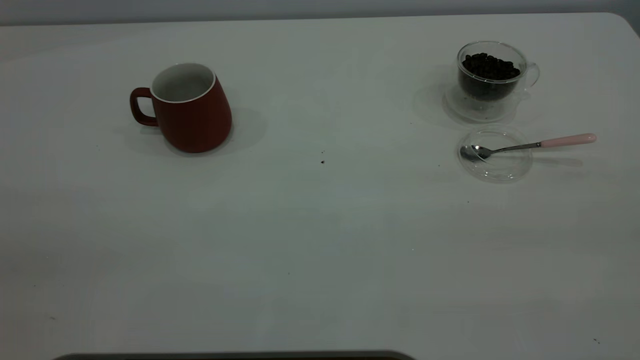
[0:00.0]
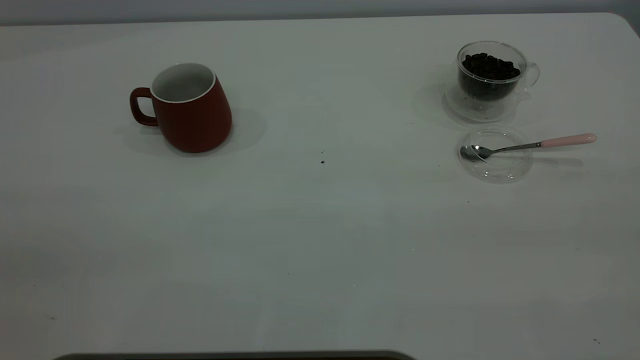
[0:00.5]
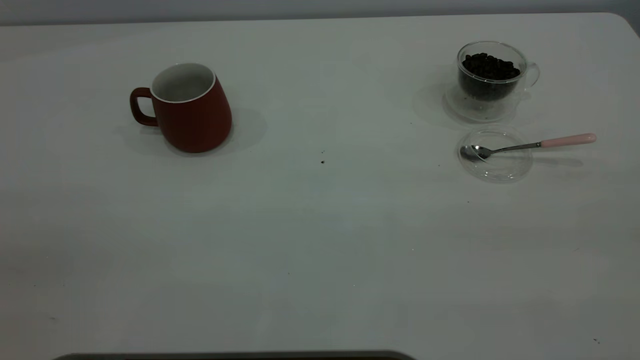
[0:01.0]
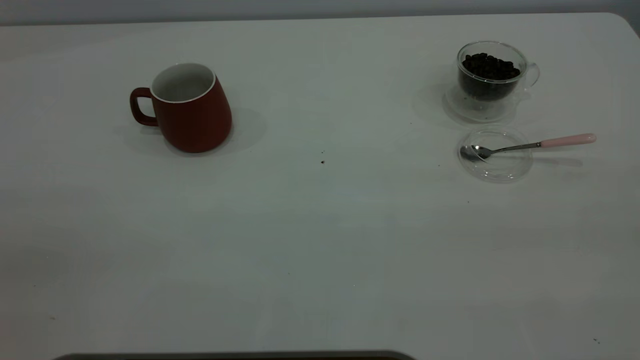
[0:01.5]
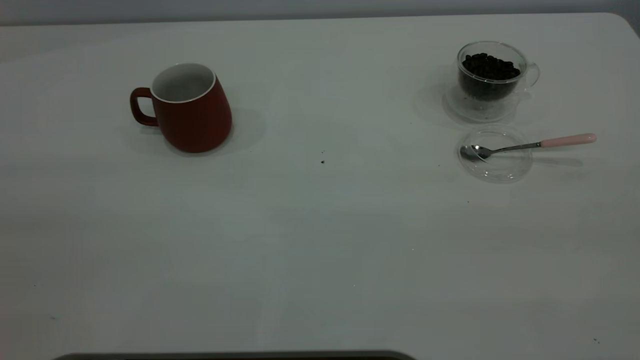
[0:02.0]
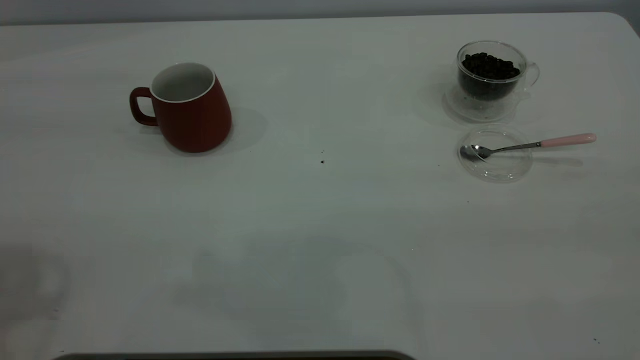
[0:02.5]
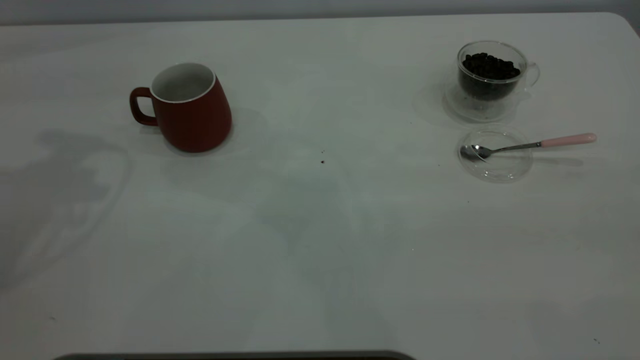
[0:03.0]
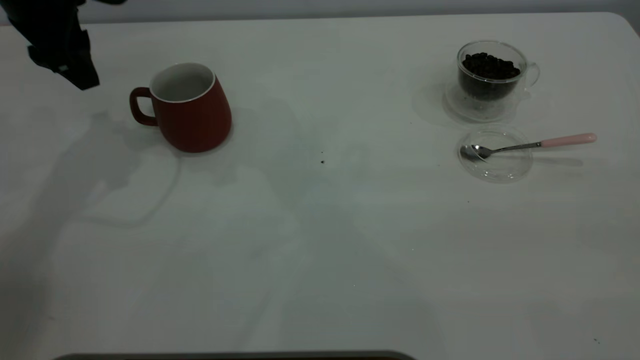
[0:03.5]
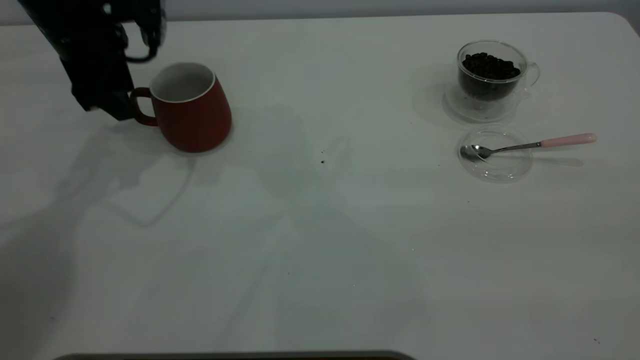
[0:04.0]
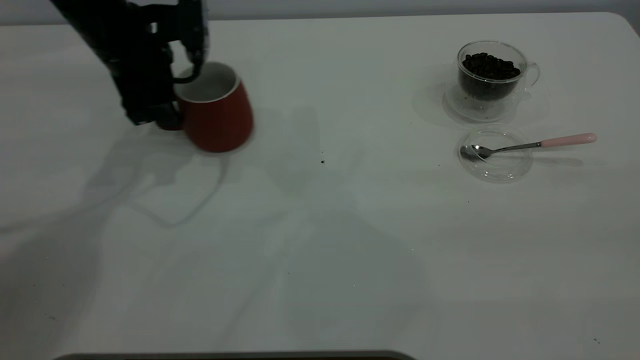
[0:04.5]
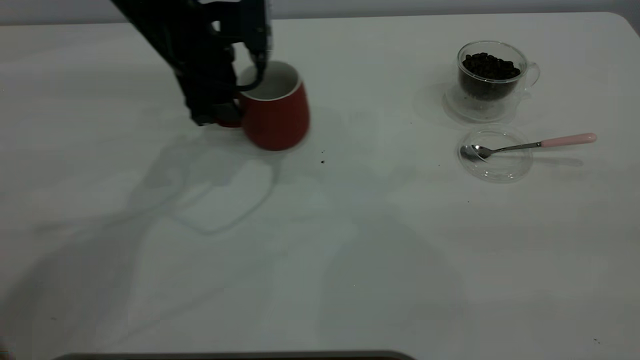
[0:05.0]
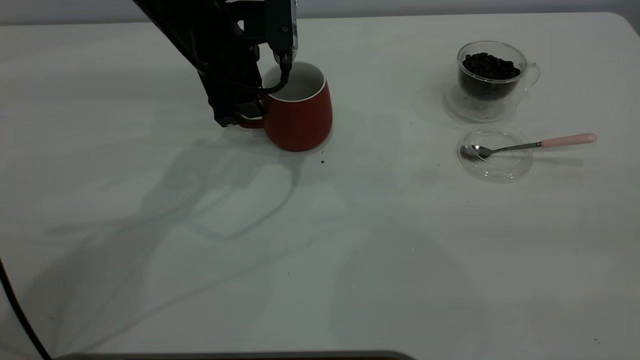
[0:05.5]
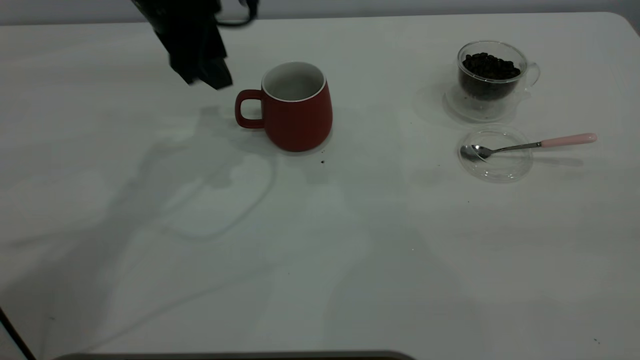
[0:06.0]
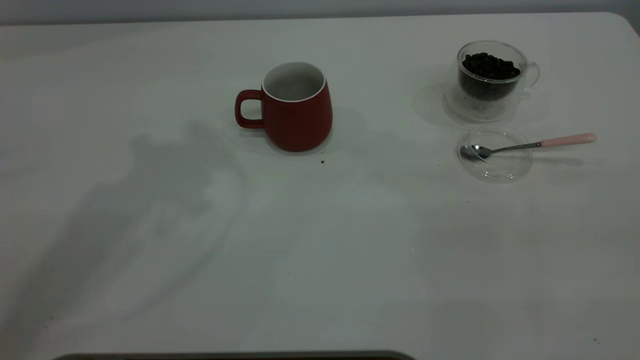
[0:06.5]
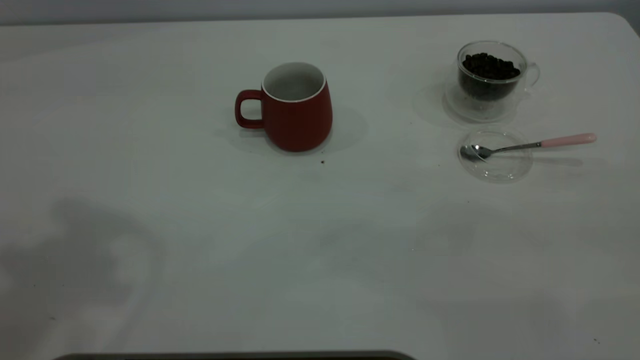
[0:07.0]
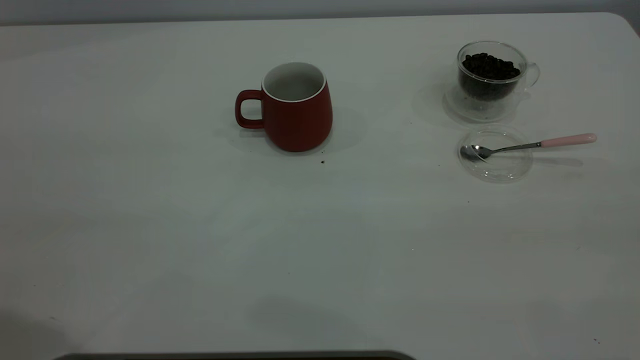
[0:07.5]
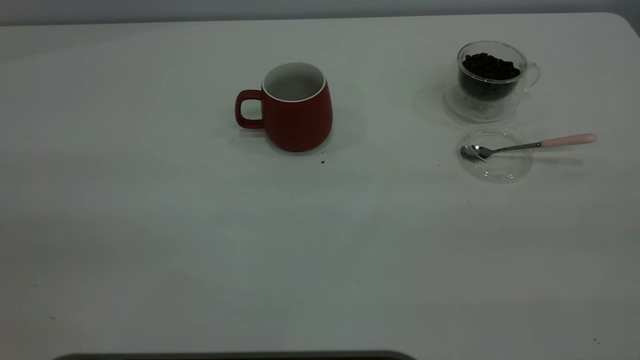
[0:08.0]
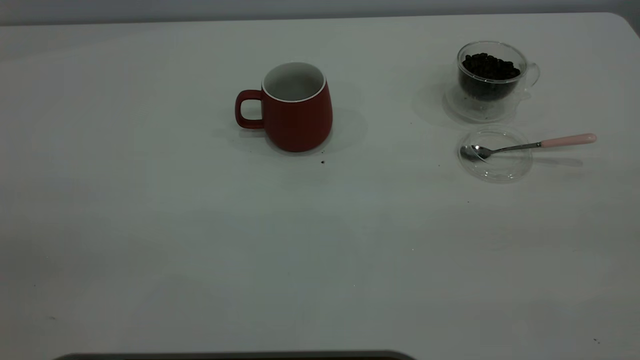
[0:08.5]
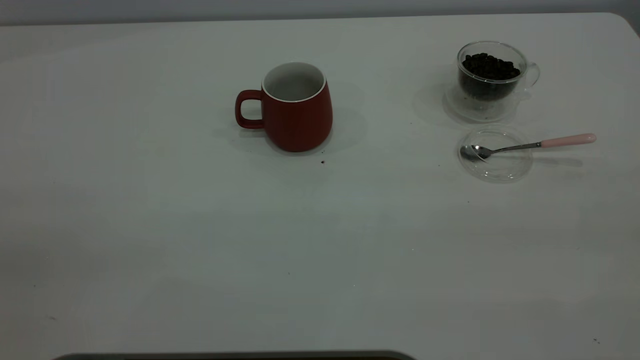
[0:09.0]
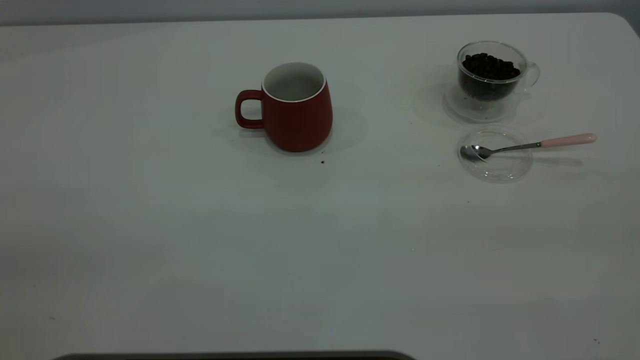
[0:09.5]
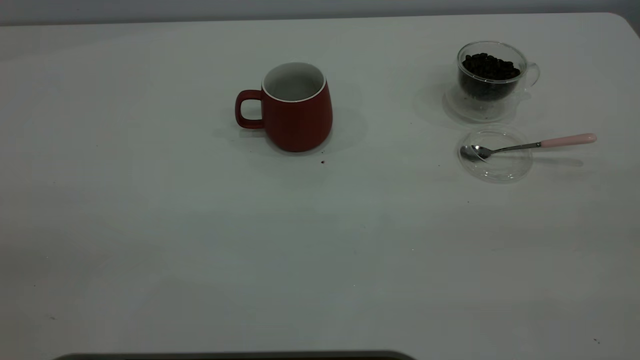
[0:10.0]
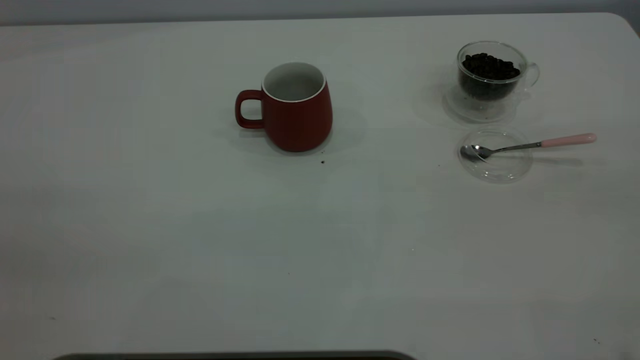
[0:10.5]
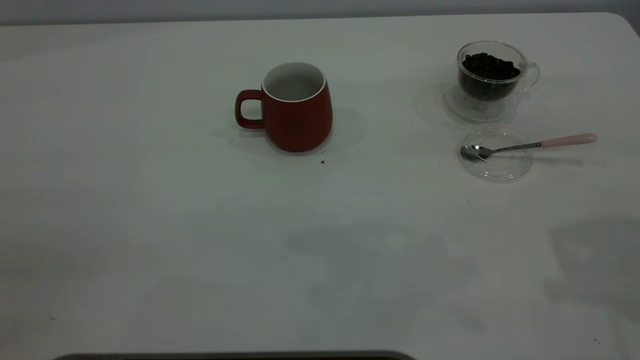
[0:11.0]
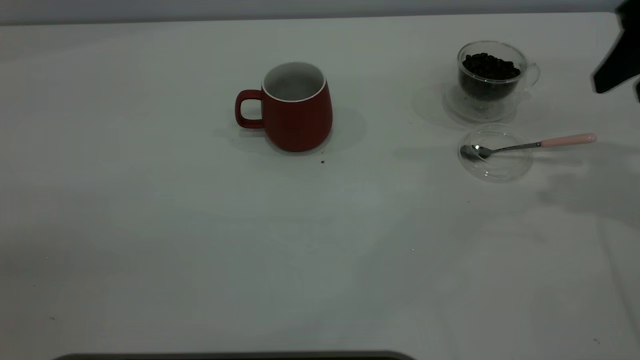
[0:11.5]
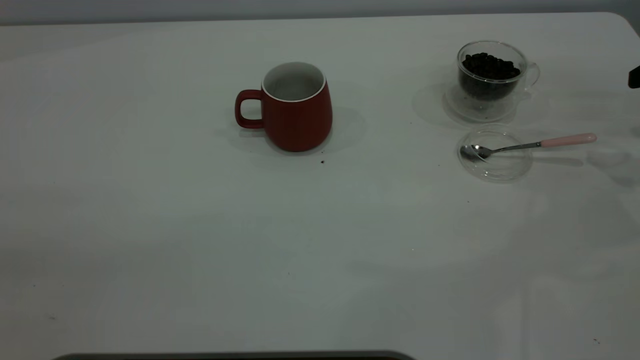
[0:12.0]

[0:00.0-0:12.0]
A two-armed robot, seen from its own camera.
Task of the whole recording: the left gripper place the red cup in the center of the table, the right gripper take the pink spoon from the cup lid and scoop out the coffee beans from the coffee cup and put them into the red cup, the right gripper put the spoon back into the cup lid.
Step, 0:00.0 to 0:05.5: Move the cup to the center of view.
0:02.0 to 0:04.0: The left gripper moves forward and downward, some 50 cm.
0:04.0 to 0:06.0: The left gripper heads to the right, covering roughly 10 cm.
0:06.0 to 0:08.0: The left gripper is displaced backward and upward by approximately 40 cm.

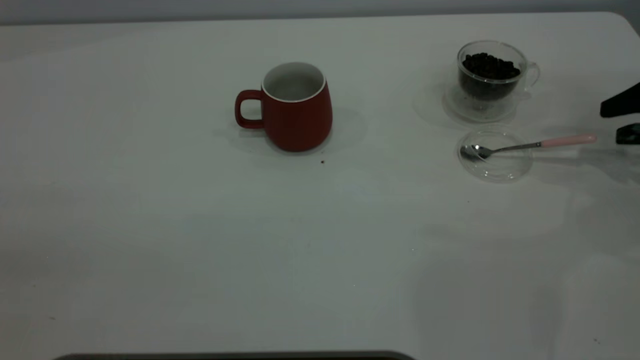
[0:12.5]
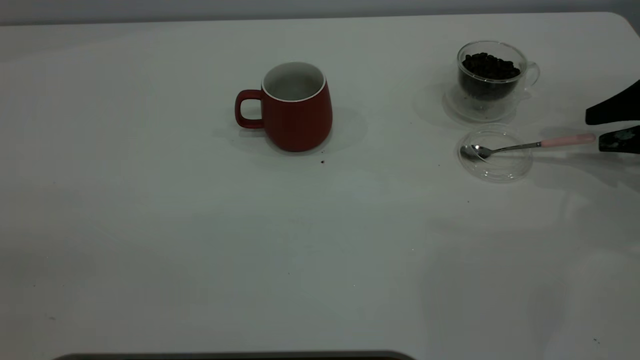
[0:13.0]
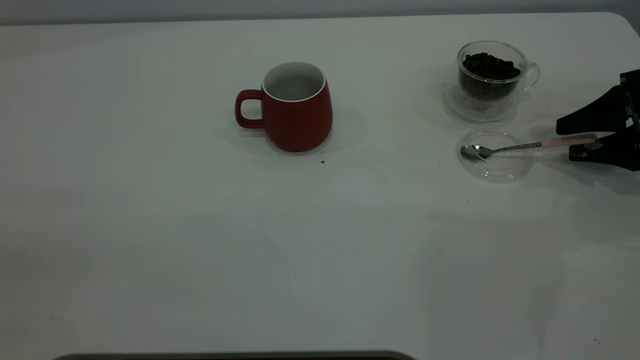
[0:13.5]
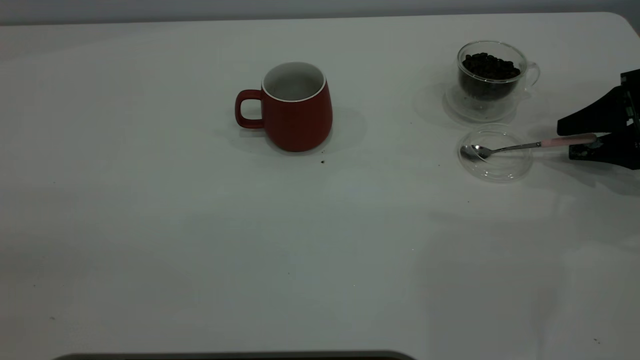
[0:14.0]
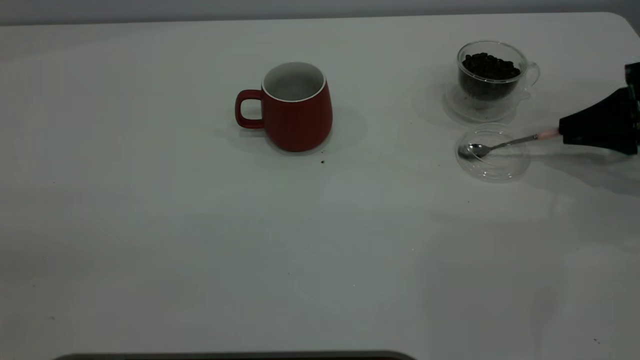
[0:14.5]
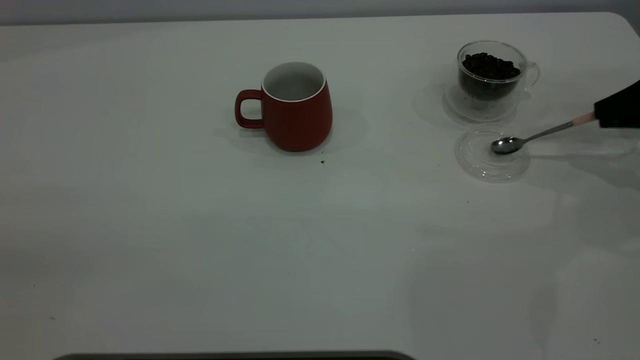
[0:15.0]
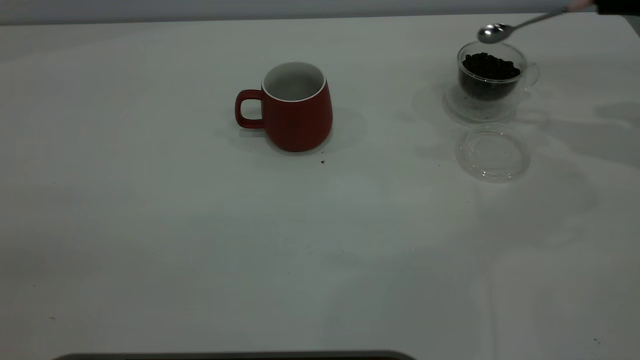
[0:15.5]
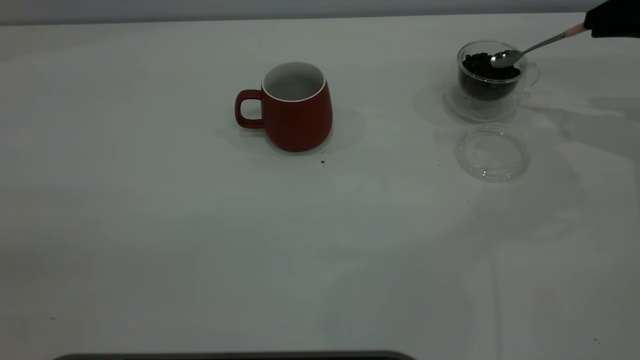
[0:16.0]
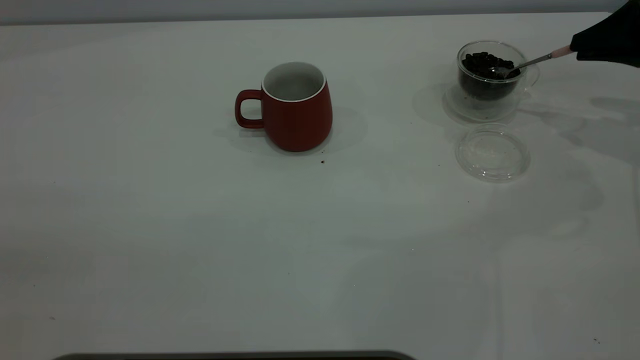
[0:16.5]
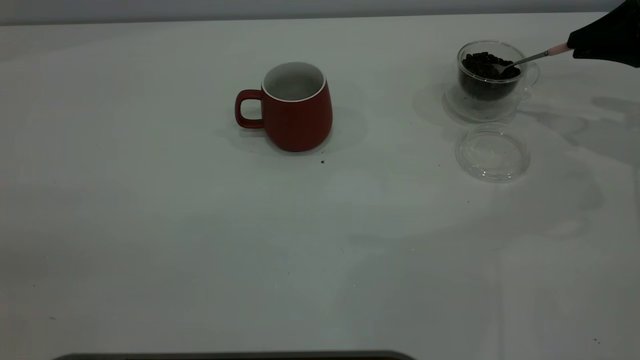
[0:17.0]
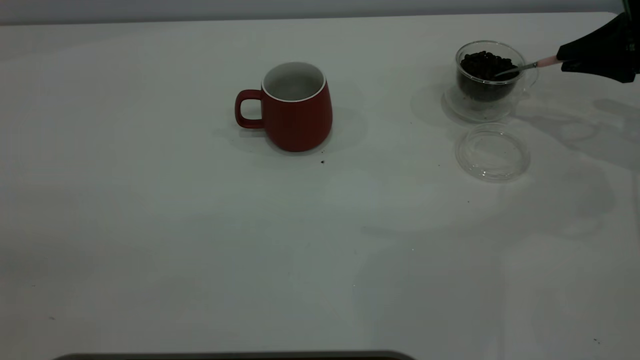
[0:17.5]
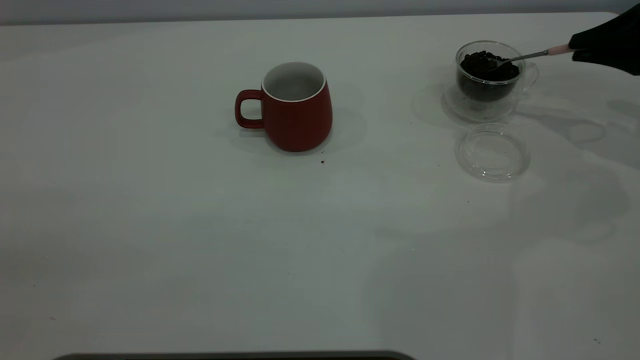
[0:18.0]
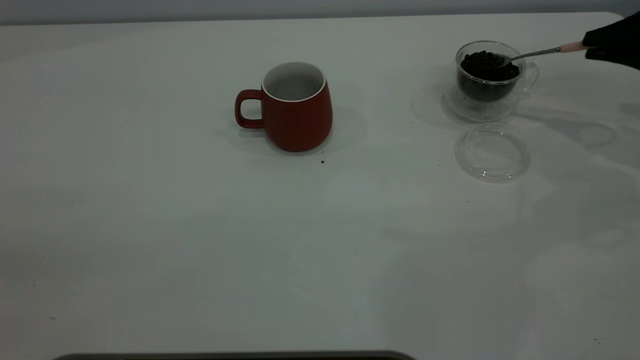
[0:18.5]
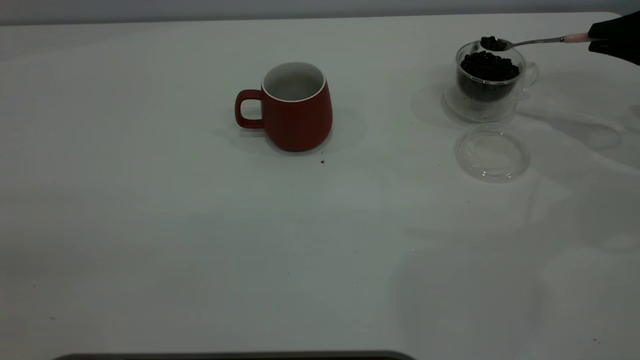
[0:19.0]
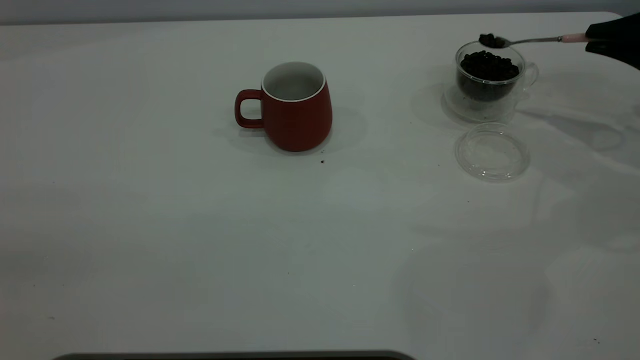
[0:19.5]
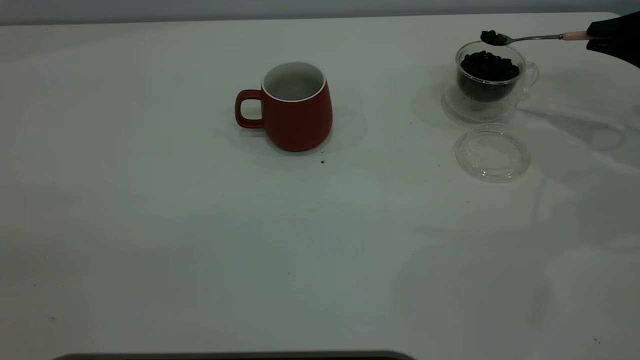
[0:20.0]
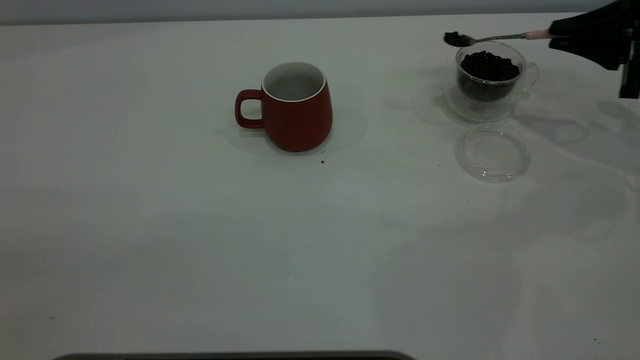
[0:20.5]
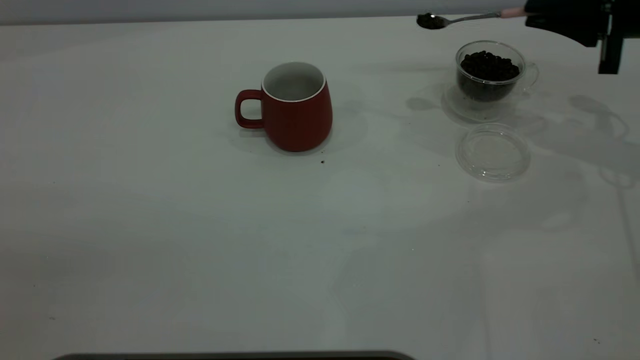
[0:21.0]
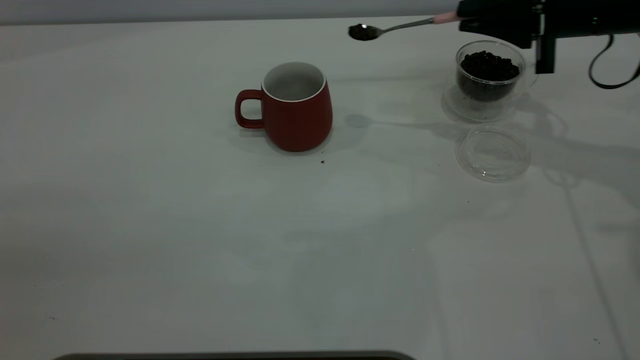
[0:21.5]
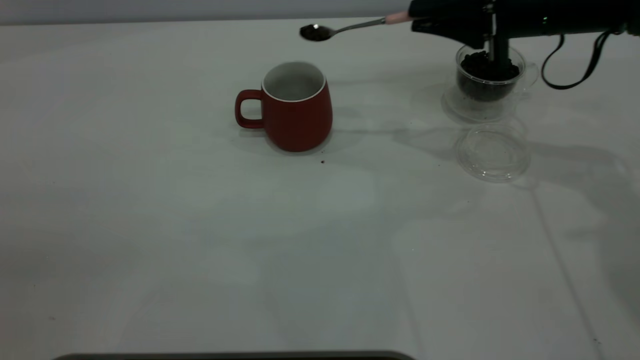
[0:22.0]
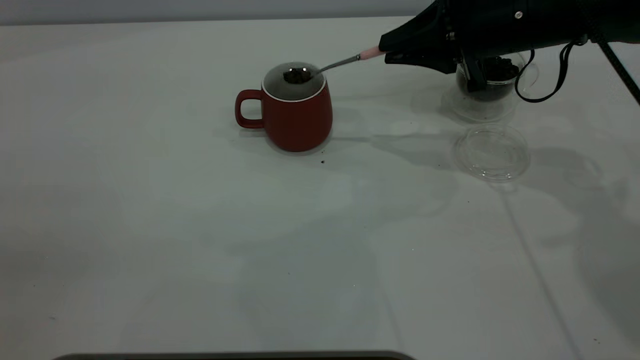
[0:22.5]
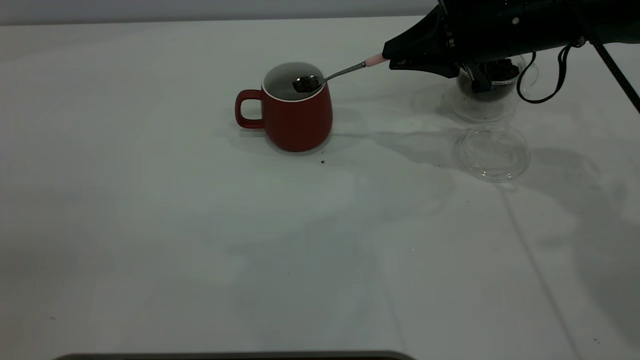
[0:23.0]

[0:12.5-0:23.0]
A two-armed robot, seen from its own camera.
Task of the whole recording: the left gripper place the red cup in the center of the table, the right gripper take the pink spoon from the cup lid and scoop out the coffee beans from the coffee cup and put them into the red cup, the right gripper put the spoon back into the cup lid.
Step, 0:12.5 to 0:15.0: Pick up the spoon.
0:12.5 to 0:14.5: The right gripper closes its fingers.
0:14.5 to 0:16.5: The right gripper heads upward, covering roughly 10 cm.
0:19.0 to 0:21.0: The right gripper shifts approximately 5 cm to the left.
0:21.0 to 0:23.0: The right gripper is displaced to the left by some 15 cm.
